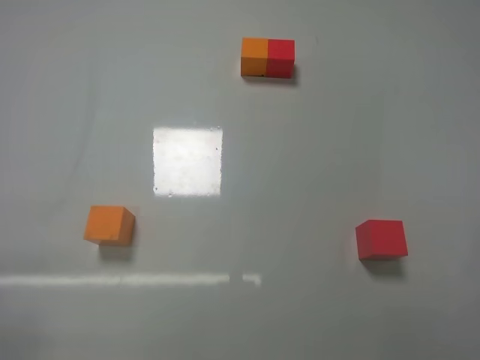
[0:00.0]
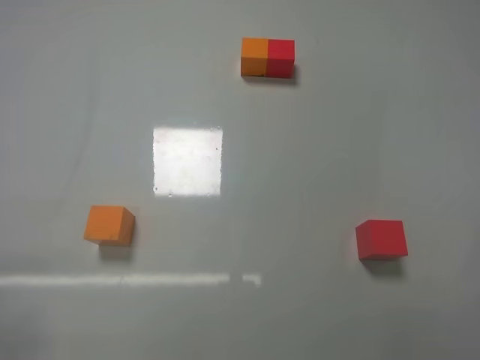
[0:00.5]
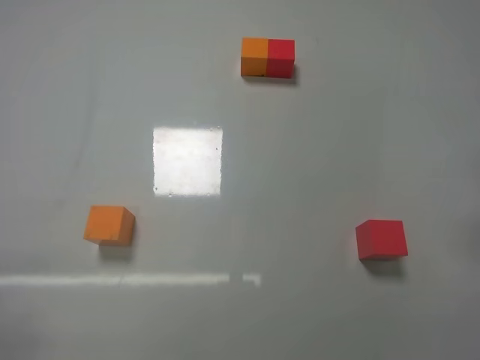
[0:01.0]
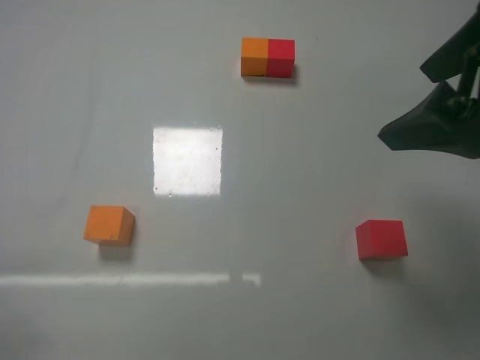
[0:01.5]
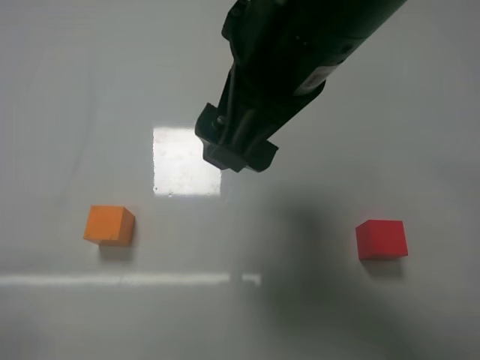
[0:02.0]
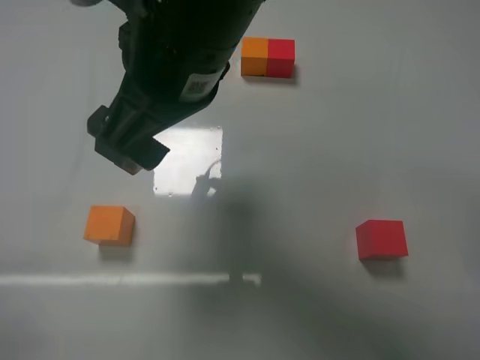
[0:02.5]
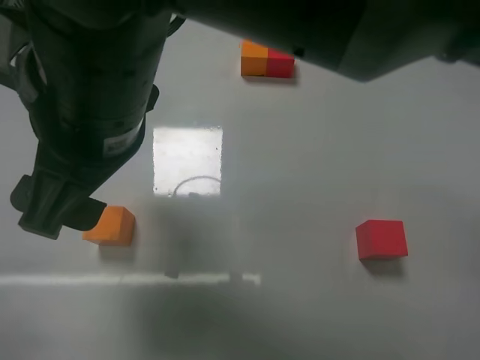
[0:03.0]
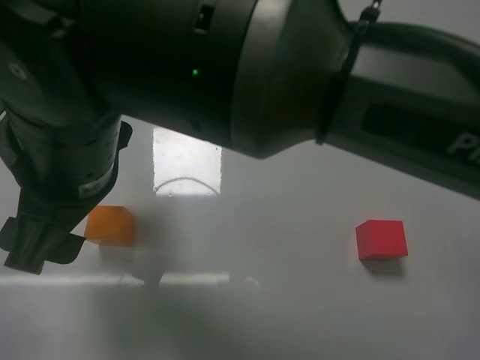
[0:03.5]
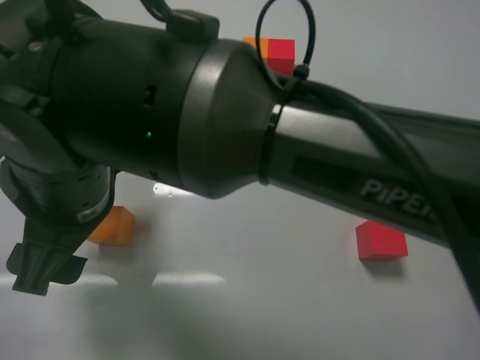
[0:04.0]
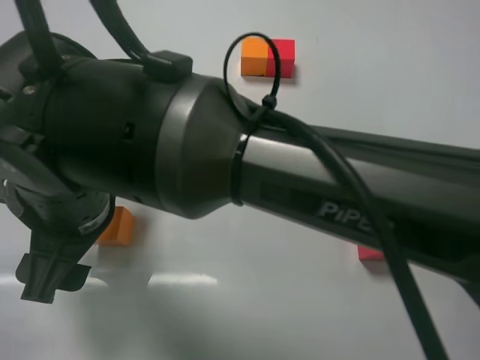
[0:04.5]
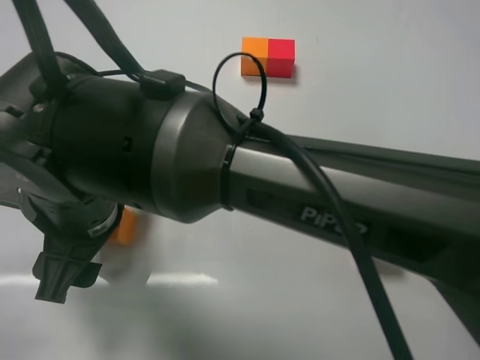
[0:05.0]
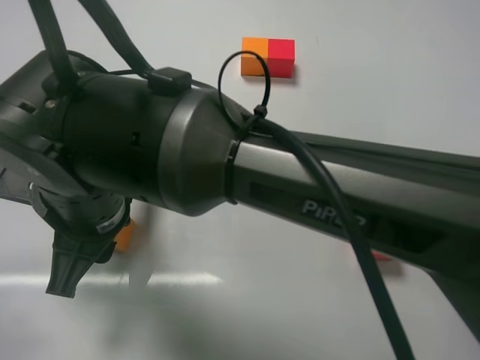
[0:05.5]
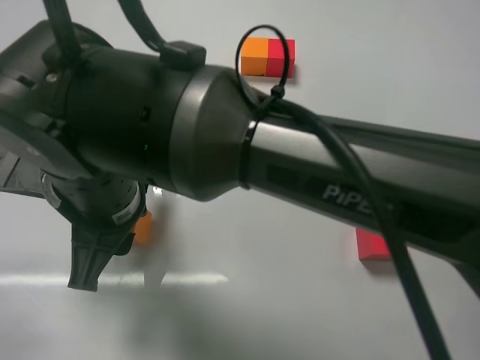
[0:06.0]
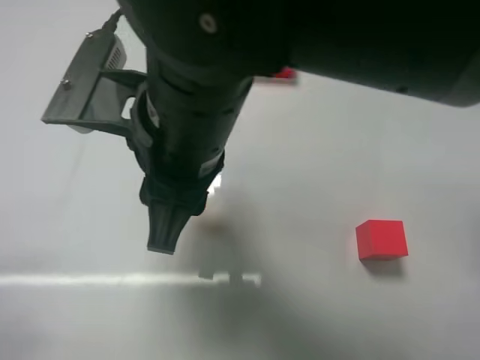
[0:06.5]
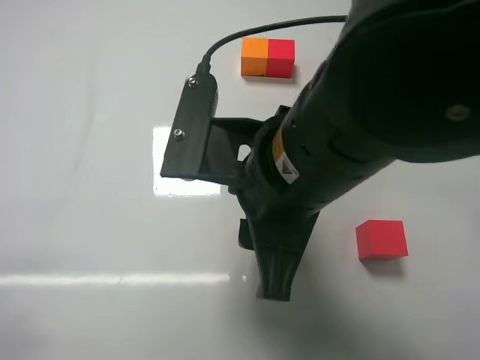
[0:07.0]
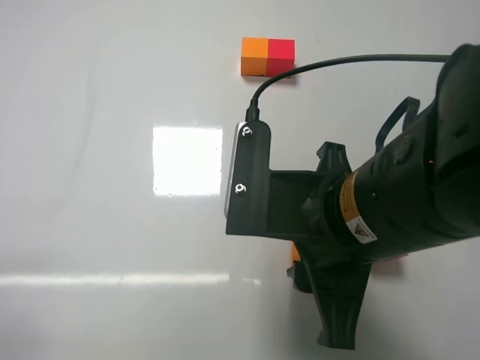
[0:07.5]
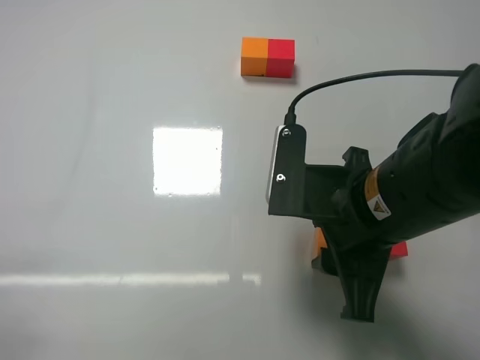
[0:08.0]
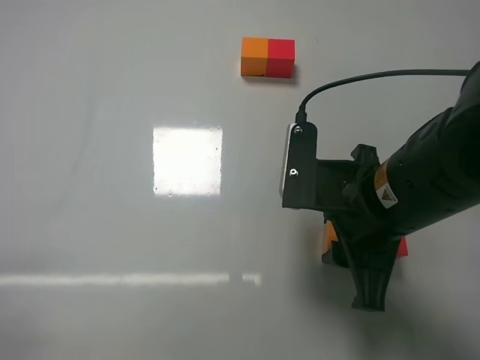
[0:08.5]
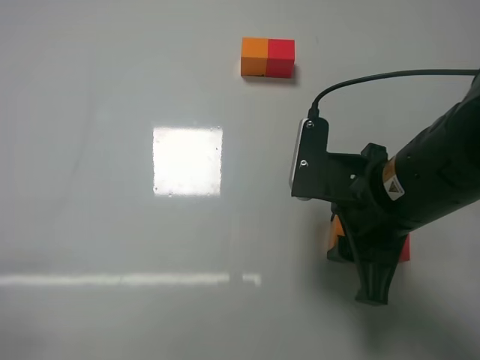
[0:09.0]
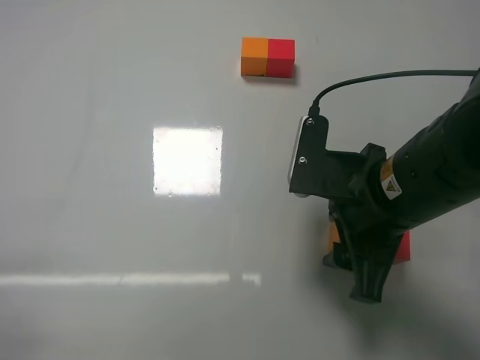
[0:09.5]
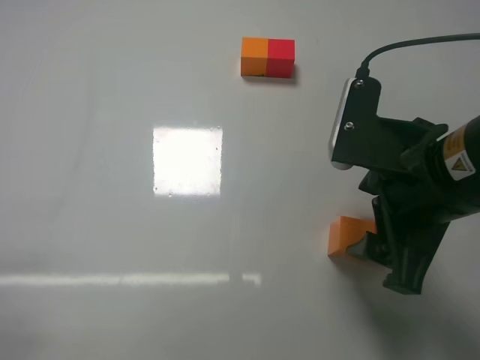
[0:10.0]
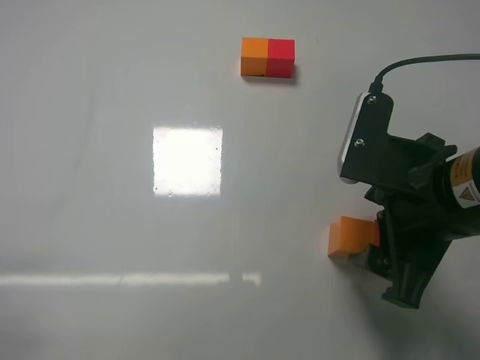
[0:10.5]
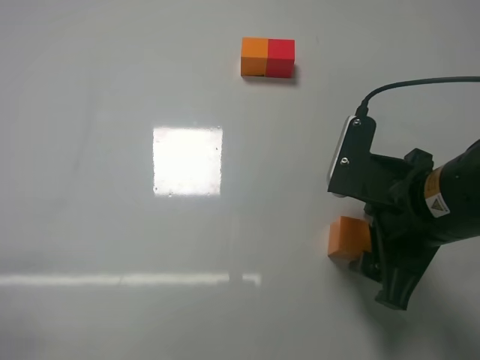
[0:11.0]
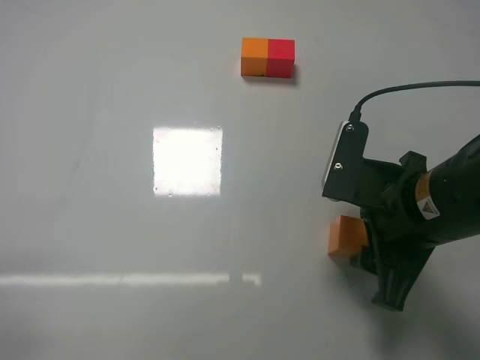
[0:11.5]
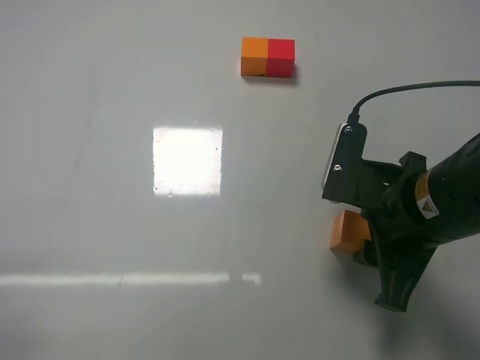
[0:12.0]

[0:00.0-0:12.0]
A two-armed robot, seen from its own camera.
Task of the whole recording: According to the building block template in front, assemble the scattered blocks together.
Step, 0:00.0 to 0:05.5: Grasp the orange block with right gripper.
Step, 0:06.0 to 0:09.5: Put the orange cube on the left of the red cube with the right gripper.
0:00.0 to 0:02.0: The left gripper closes its fingers. Meanwhile the right gripper is displaced to the left, forward and upward by some 35 cm.
0:02.0 to 0:04.0: The right gripper travels to the left and downward by some 20 cm.
0:04.0 to 0:06.0: The right gripper closes.
0:06.0 to 0:08.0: The right gripper is displaced to the right by some 25 cm.
0:08.0 to 0:10.0: The right gripper changes place by roughly 5 cm, and opens its fingers.
0:10.0 to 0:12.0: The right gripper closes.

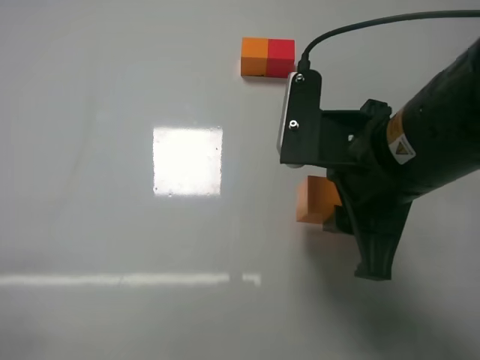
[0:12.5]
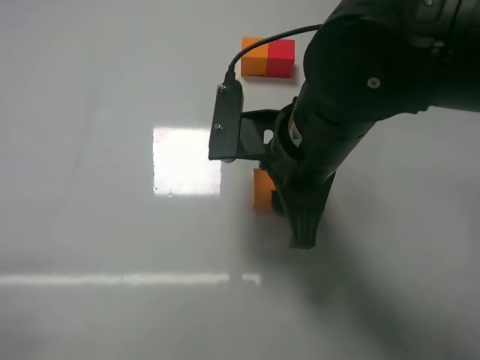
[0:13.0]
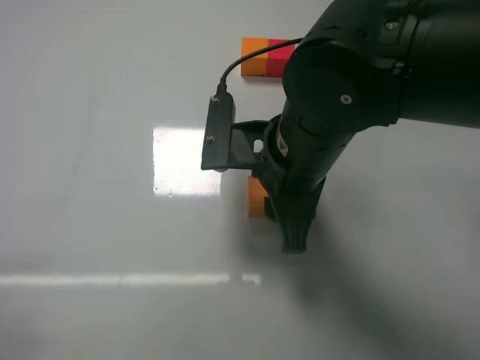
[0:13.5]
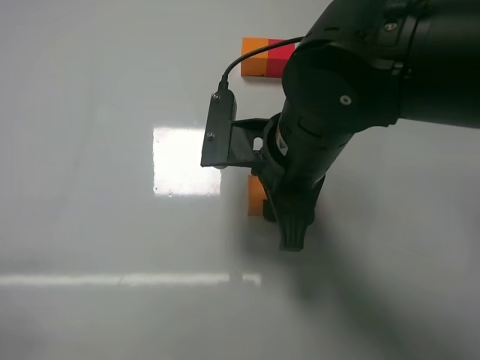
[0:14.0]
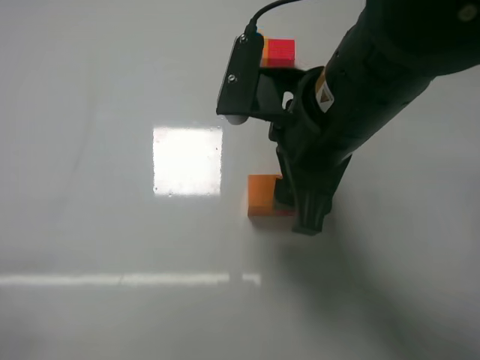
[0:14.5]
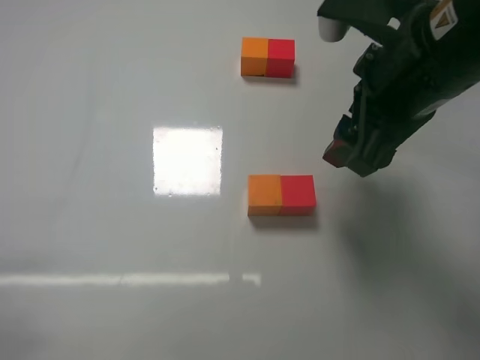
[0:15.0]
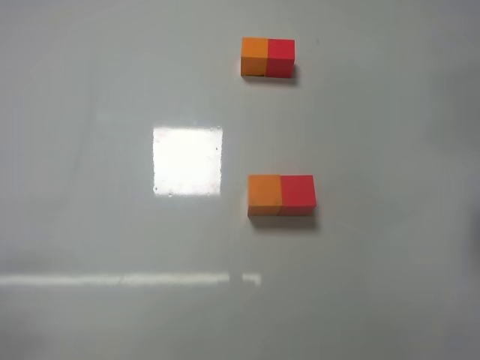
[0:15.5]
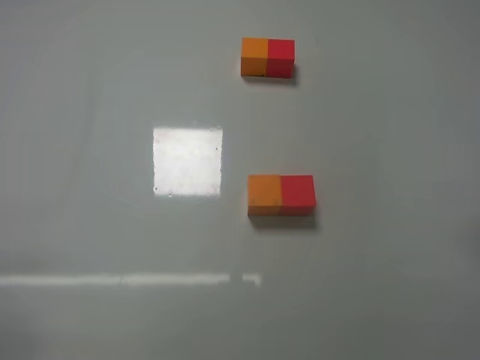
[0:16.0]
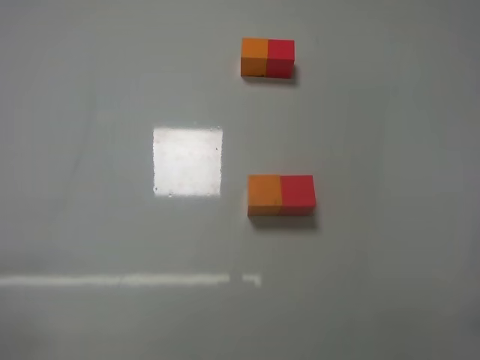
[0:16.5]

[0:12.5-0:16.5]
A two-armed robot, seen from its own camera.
Task of the whole recording: According to the building block template in front, assemble the scattered blocks together.
0:12.5 to 0:14.5: The right gripper opens its fingers.
0:14.5 to 0:16.5: The right gripper is displaced to the right, backward and downward by about 35 cm.

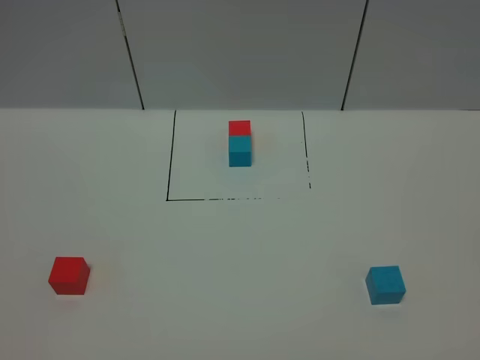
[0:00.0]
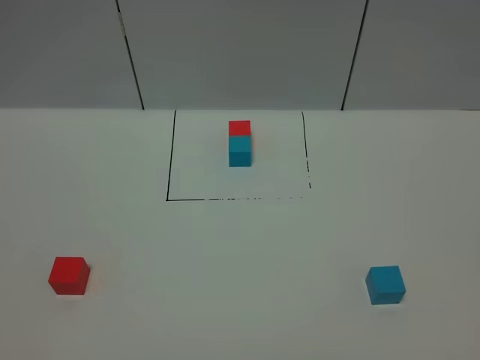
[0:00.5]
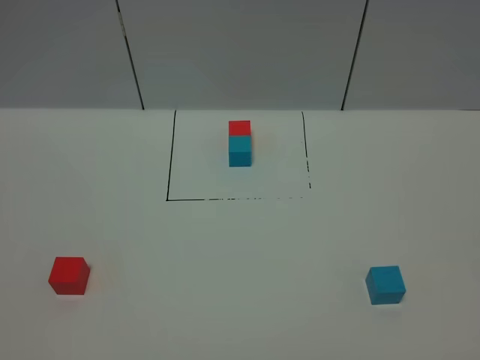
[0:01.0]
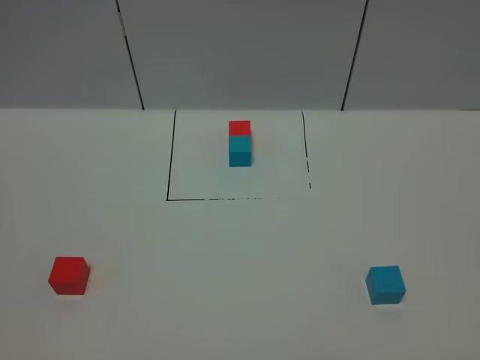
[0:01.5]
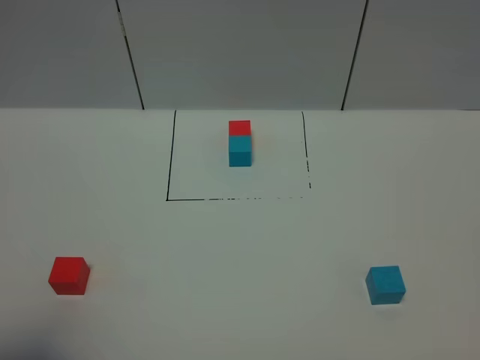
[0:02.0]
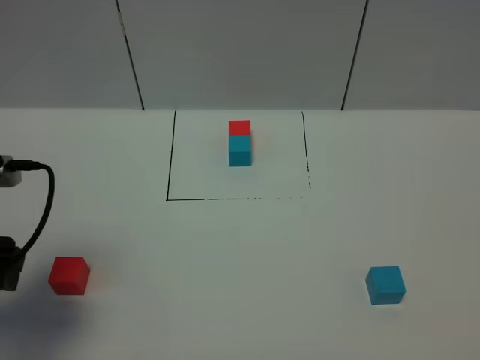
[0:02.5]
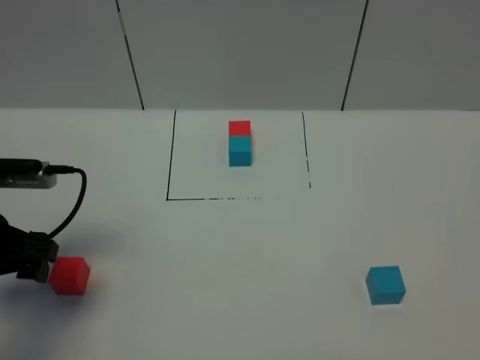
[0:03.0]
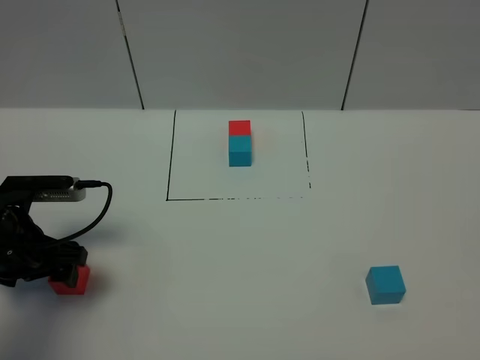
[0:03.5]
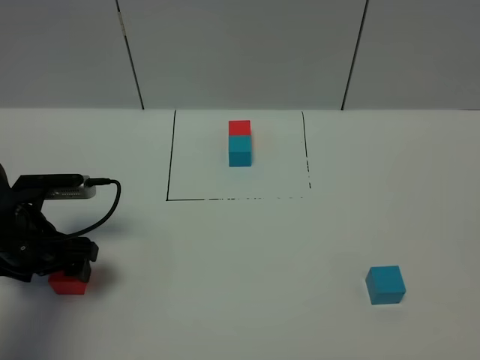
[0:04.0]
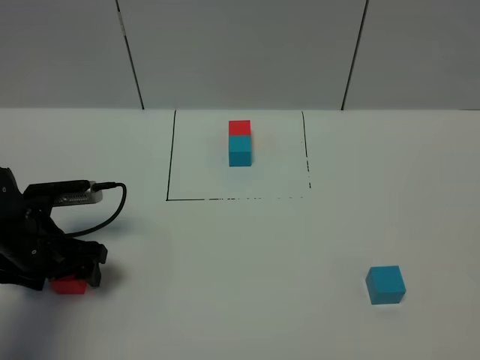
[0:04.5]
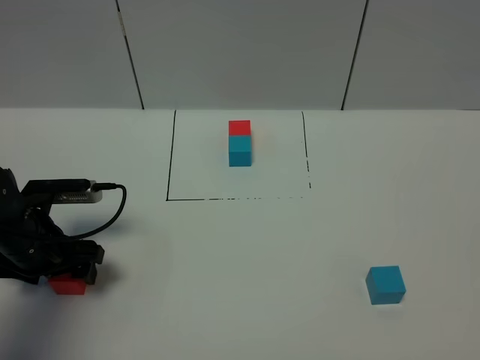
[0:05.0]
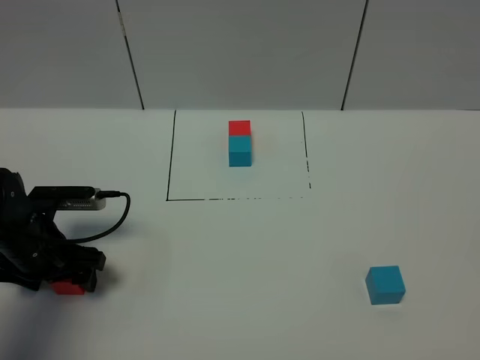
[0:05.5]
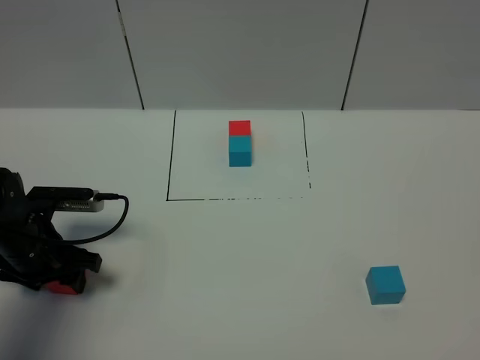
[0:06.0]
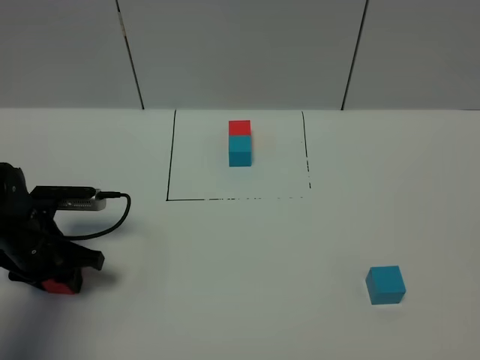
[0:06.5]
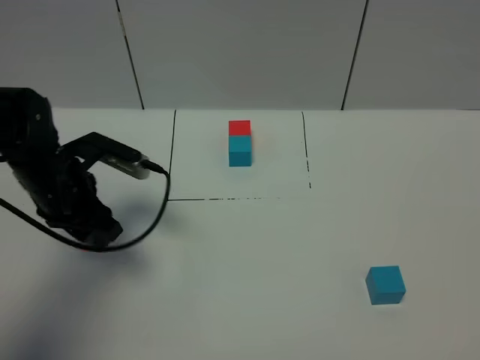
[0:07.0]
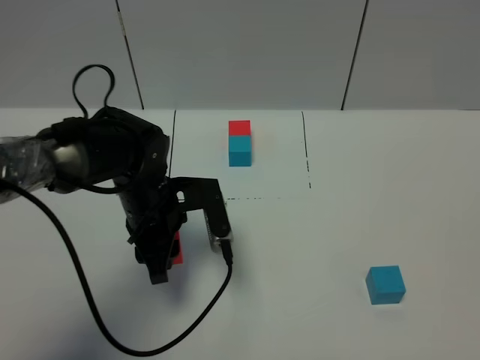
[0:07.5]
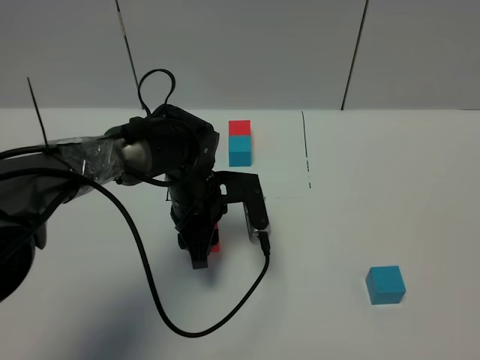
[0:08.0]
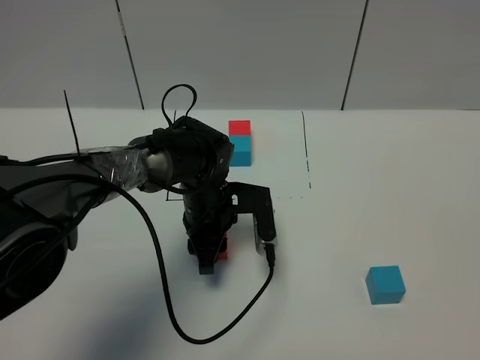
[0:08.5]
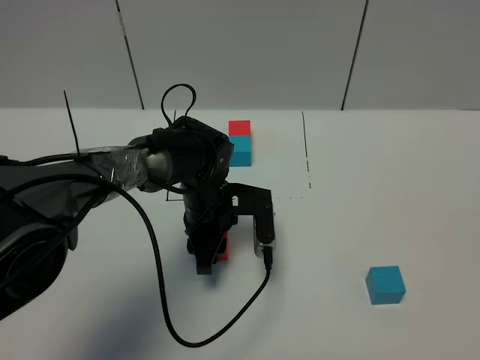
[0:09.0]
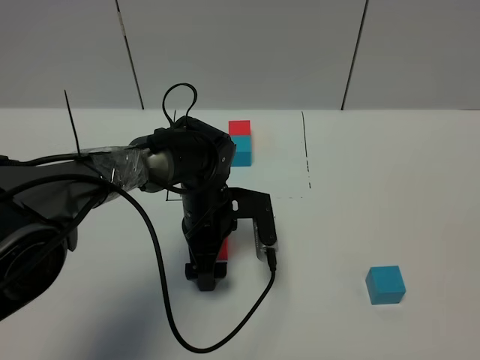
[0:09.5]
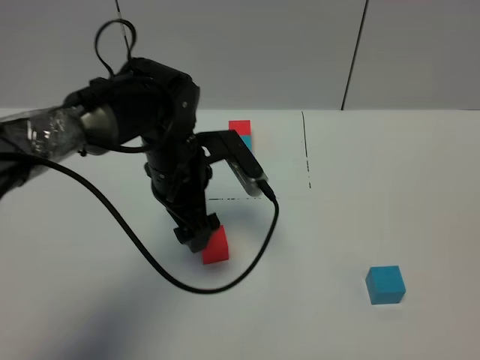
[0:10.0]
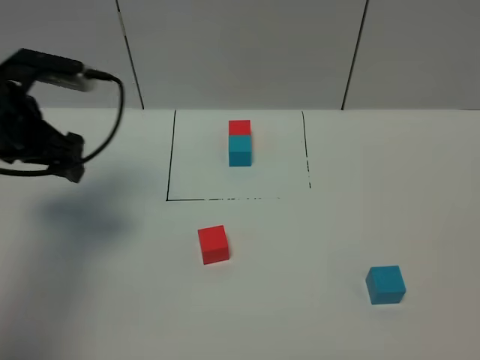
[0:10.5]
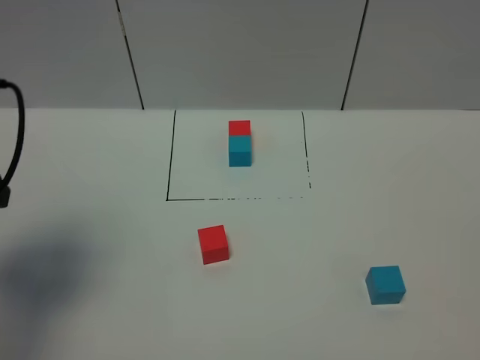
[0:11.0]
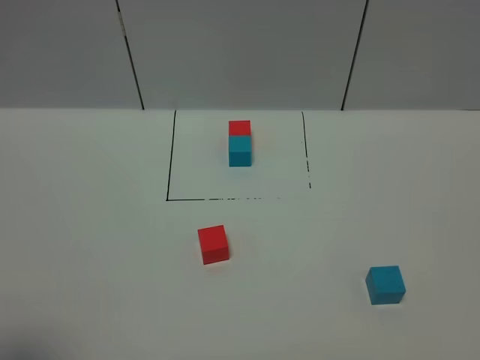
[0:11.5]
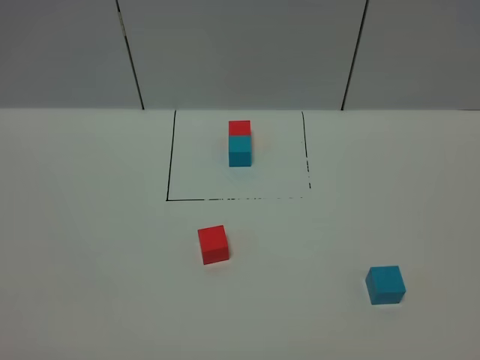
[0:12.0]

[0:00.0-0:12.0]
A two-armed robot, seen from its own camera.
Task of the whole recording: According to the building block template in front, assemble the scattered blocks together.
Step, 0:02.5 to 0:10.0: Put the red cube in the center of the table.
0:00.0 to 0:02.0: The left gripper shifts about 10 cm forward.
0:02.0 to 0:04.0: The left gripper moves forward and downward, roughly 25 cm.
0:04.0 to 0:06.0: The left gripper closes its fingers.
0:06.0 to 0:08.0: The left gripper heads to the right, covering about 20 cm.
0:08.0 to 0:10.0: The left gripper heads upward, covering roughly 5 cm, and opens.
0:10.0 to 0:12.0: The left gripper travels backward and to the left by approximately 40 cm.
